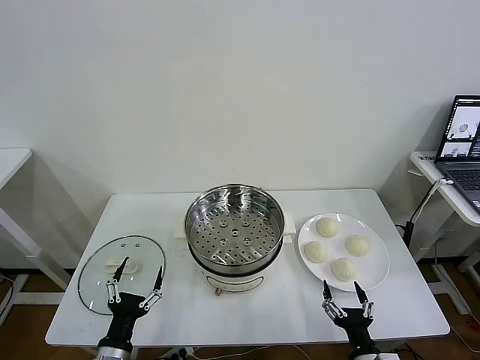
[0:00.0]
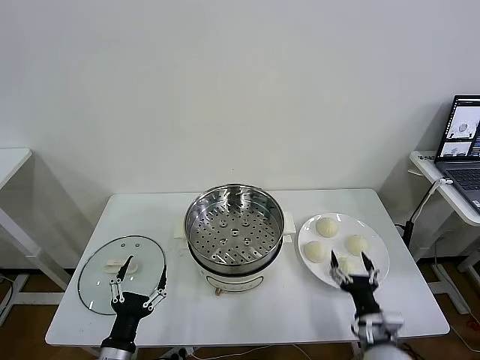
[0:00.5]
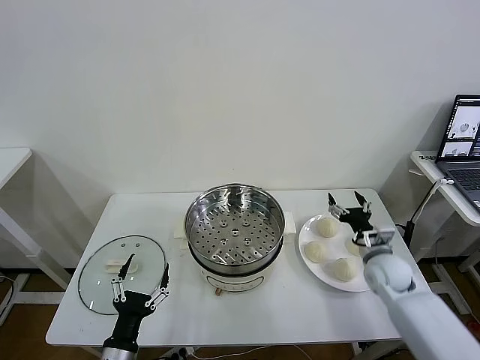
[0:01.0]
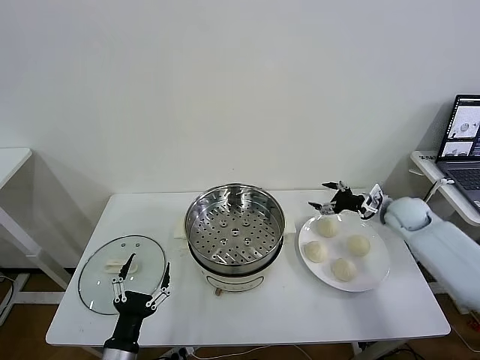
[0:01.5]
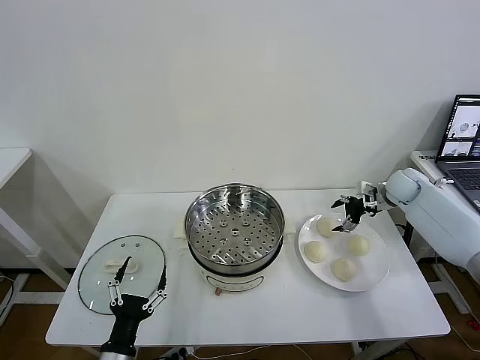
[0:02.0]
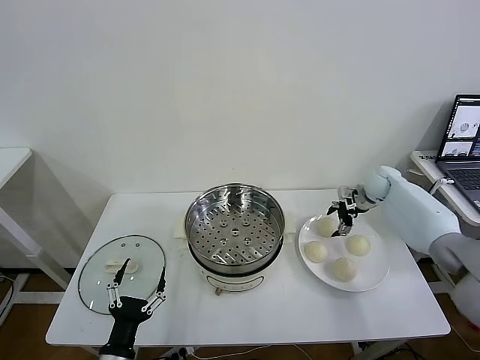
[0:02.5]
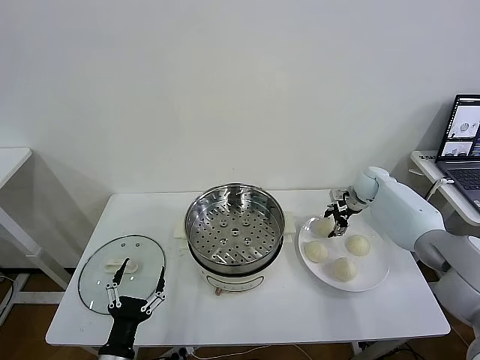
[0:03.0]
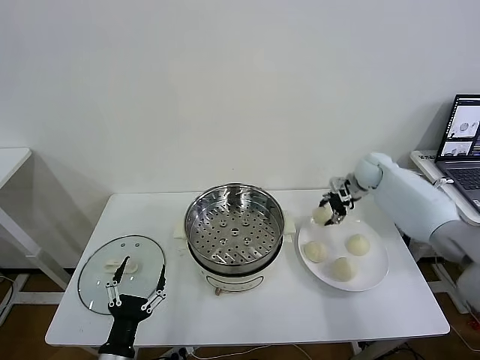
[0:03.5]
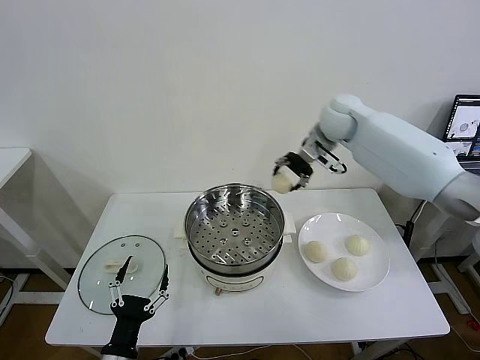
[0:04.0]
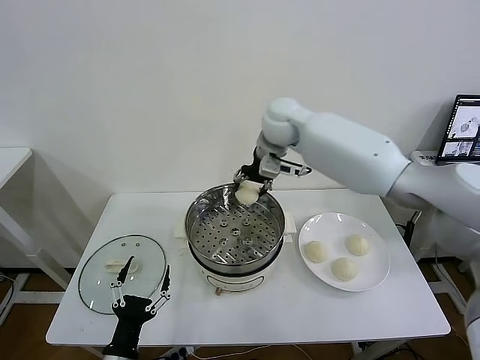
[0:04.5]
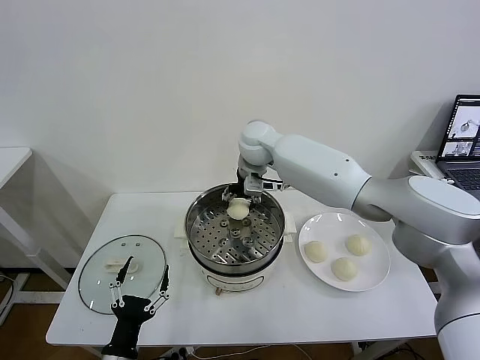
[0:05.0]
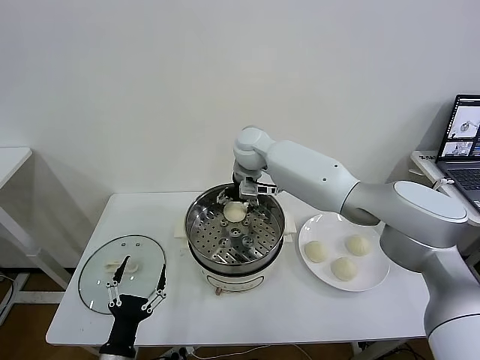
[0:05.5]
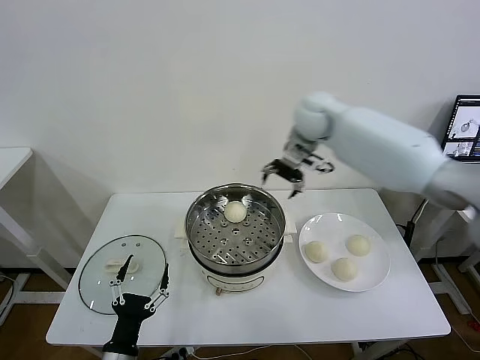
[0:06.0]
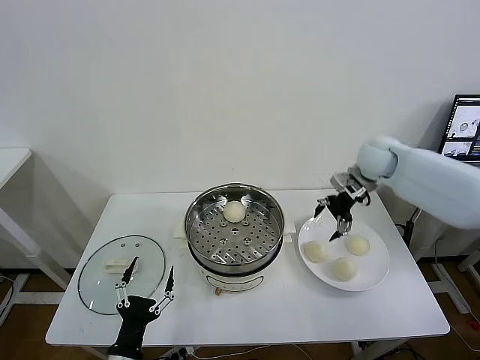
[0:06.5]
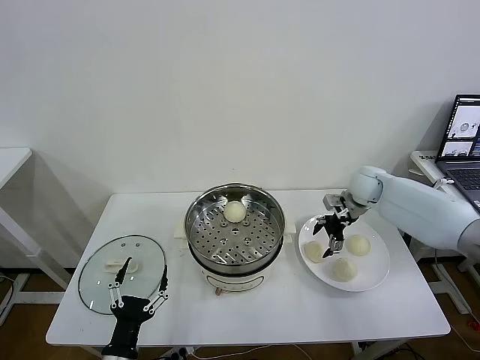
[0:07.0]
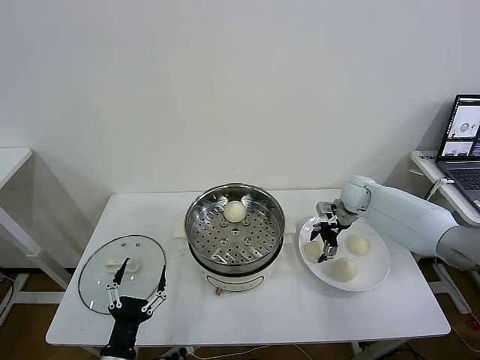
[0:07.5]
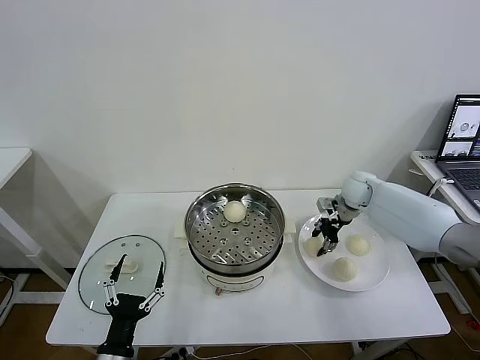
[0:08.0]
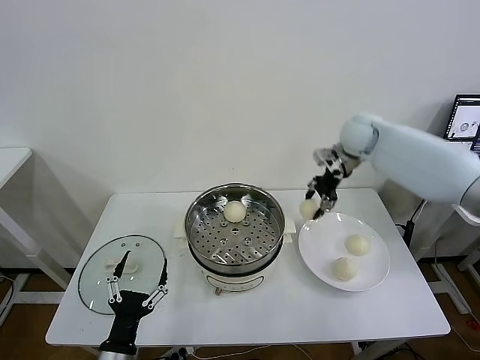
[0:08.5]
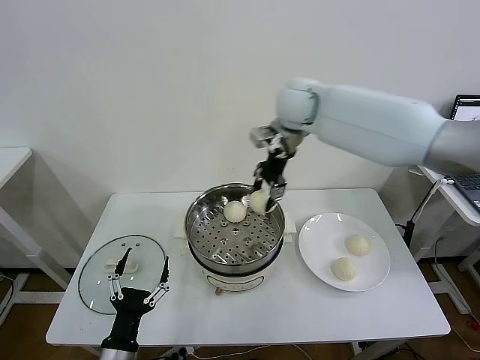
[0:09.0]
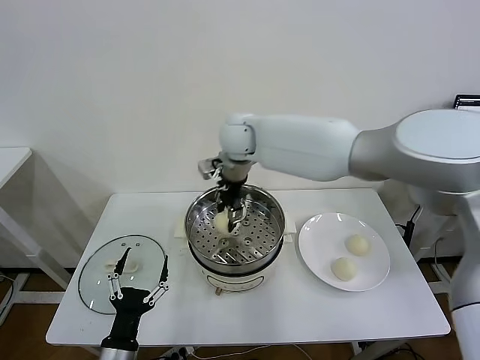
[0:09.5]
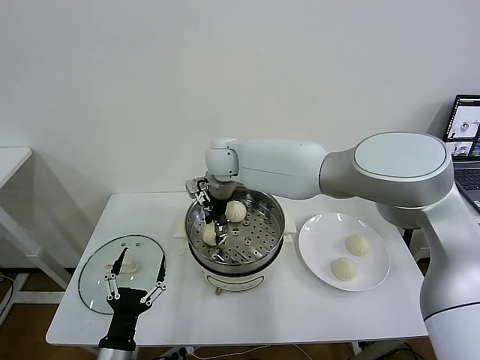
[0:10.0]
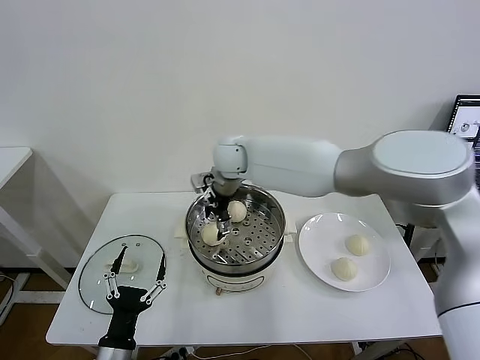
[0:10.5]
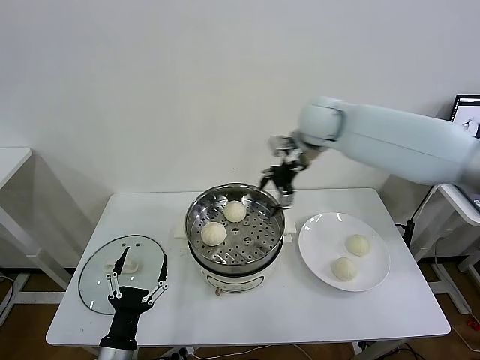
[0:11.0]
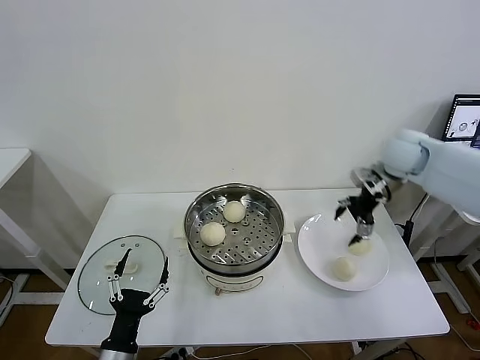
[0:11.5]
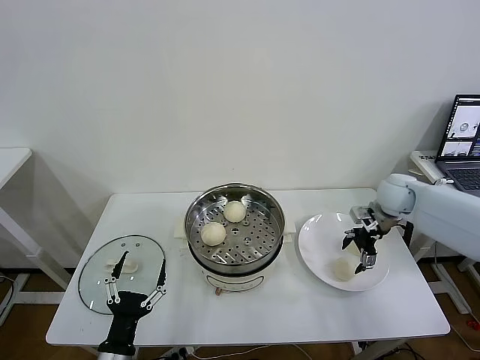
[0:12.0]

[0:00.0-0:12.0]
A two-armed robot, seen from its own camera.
Task of the whole recording: take steamed baozi put them in steamer then cover it.
Step, 0:00.0 to 0:03.0: Grasp the baozi in the plate with right gripper.
Step, 0:03.5 to 0:05.5: Place the baozi on the steamer with right gripper.
Step, 0:06.0 to 0:07.5: Grasp the baozi in the plate with right gripper.
Step, 0:08.0 to 0:10.0: Place the baozi on the steamer with right gripper.
0:02.0 to 0:04.0: The right gripper moves to the left and upward, about 30 cm, and closes its fingers.
0:04.0 to 0:06.0: The right gripper moves some 15 cm to the left and comes back, and opens its fingers.
0:06.0 to 0:08.0: The right gripper travels downward and to the right by approximately 20 cm, and closes up.
0:08.0 to 0:10.0: The right gripper goes some 35 cm to the left.
0:10.0 to 0:12.0: The right gripper moves to the right, approximately 40 cm, and opens its fingers.

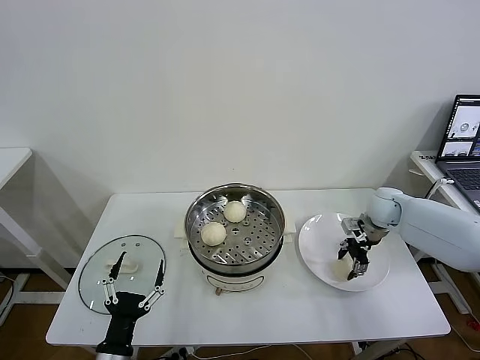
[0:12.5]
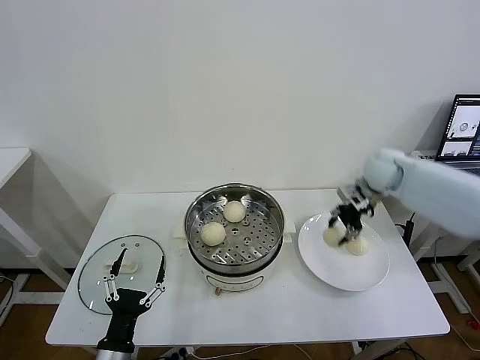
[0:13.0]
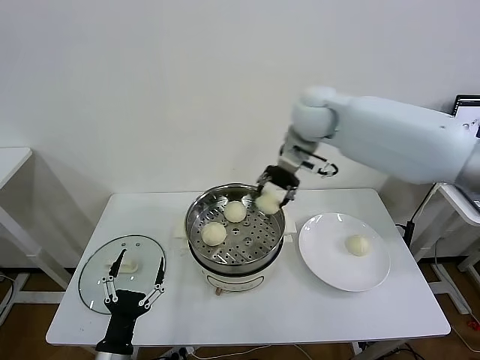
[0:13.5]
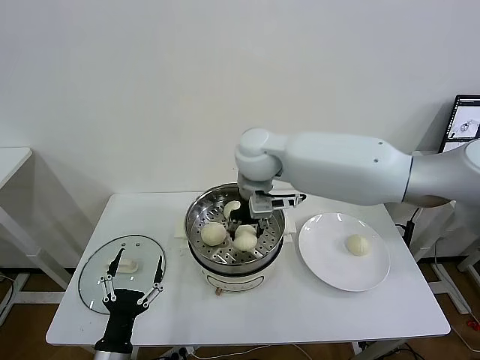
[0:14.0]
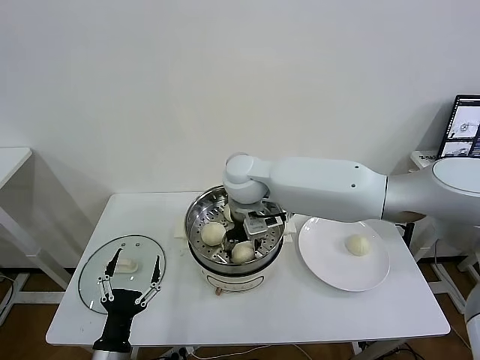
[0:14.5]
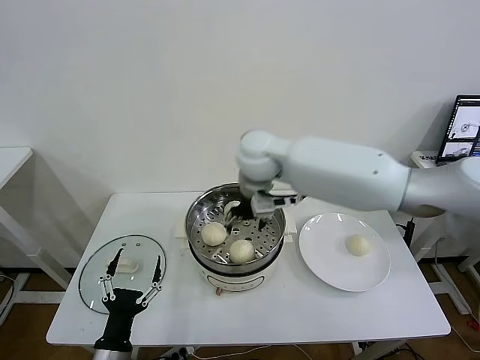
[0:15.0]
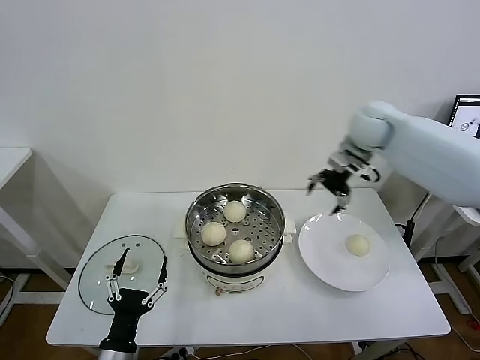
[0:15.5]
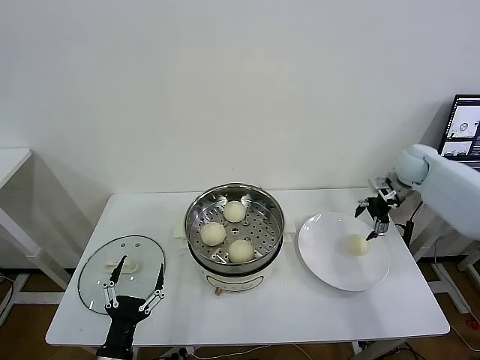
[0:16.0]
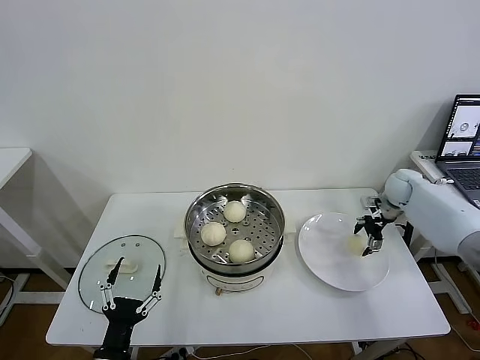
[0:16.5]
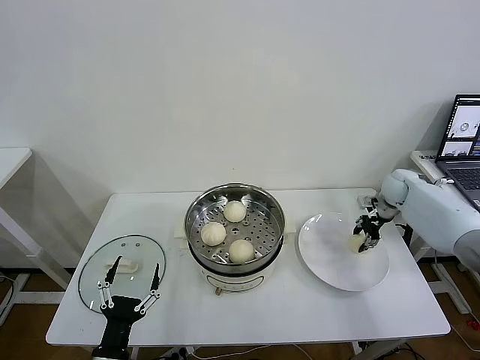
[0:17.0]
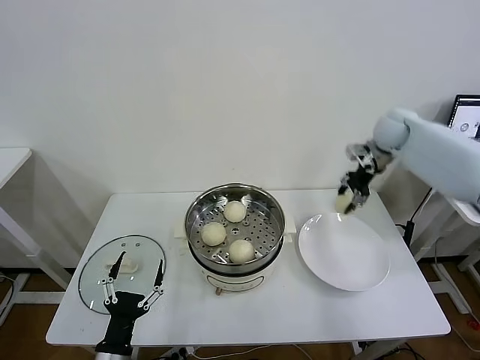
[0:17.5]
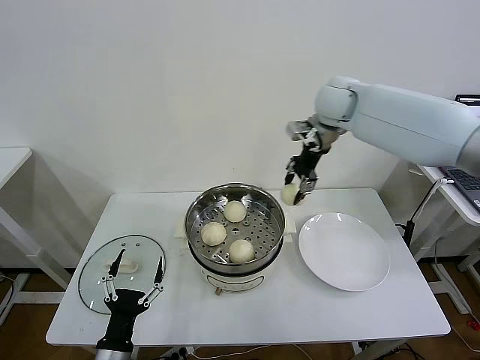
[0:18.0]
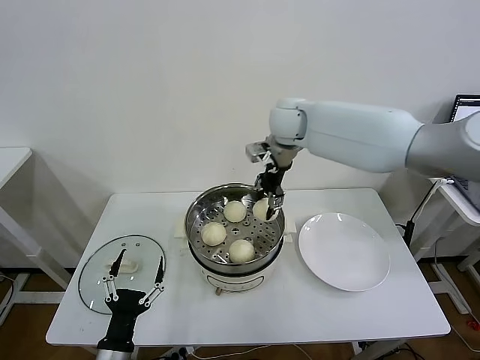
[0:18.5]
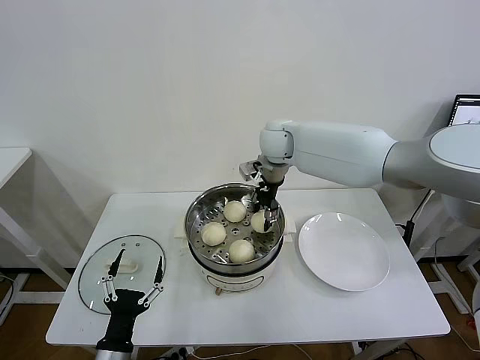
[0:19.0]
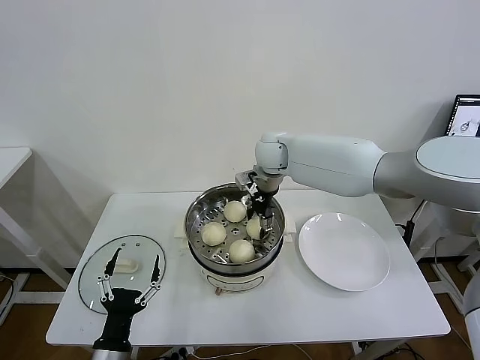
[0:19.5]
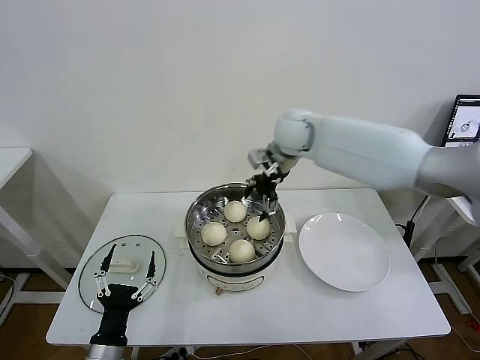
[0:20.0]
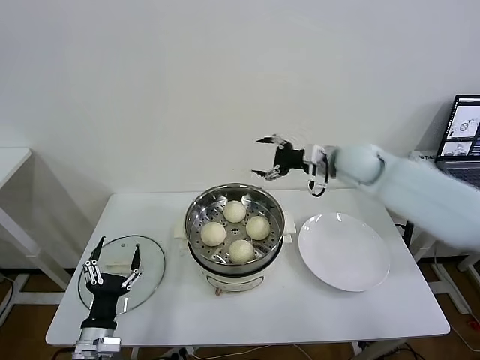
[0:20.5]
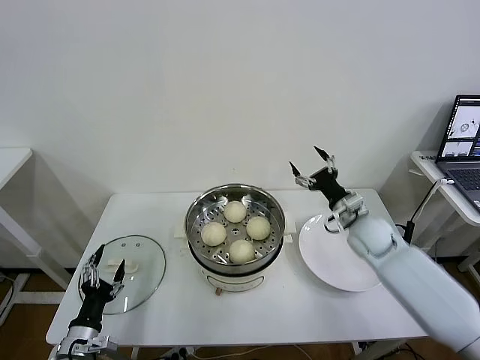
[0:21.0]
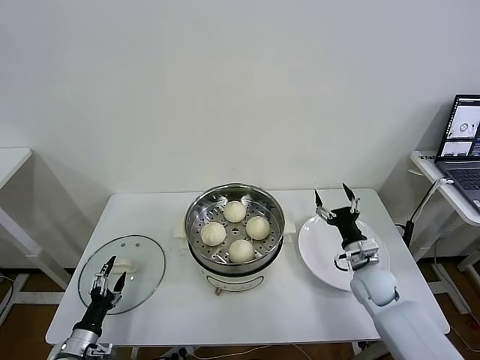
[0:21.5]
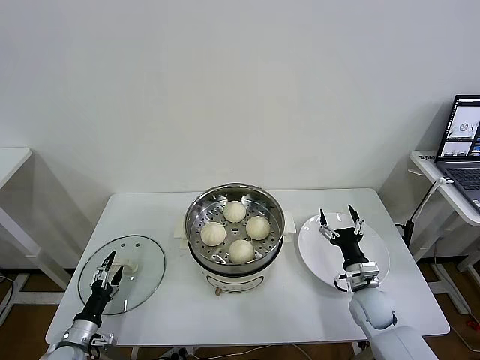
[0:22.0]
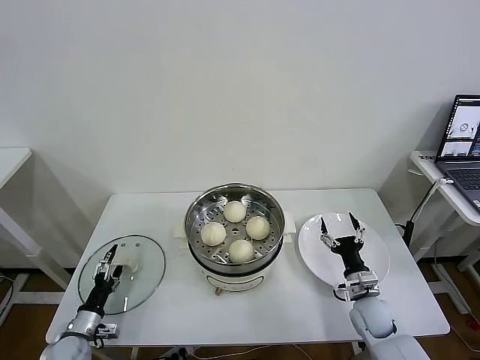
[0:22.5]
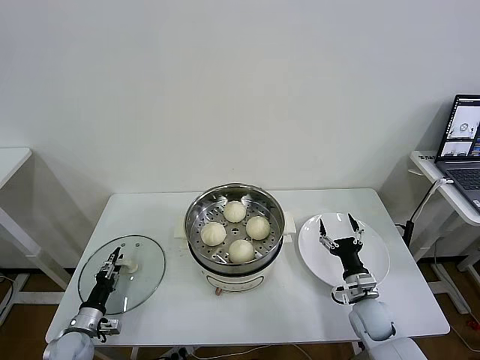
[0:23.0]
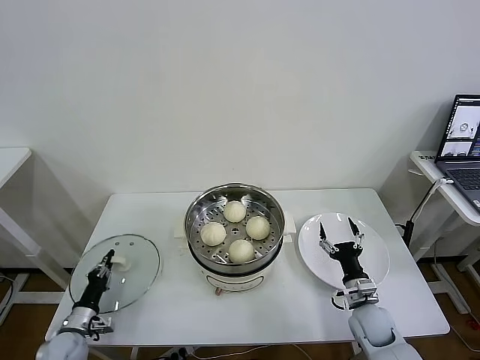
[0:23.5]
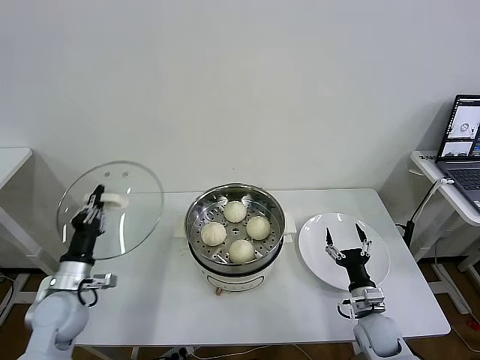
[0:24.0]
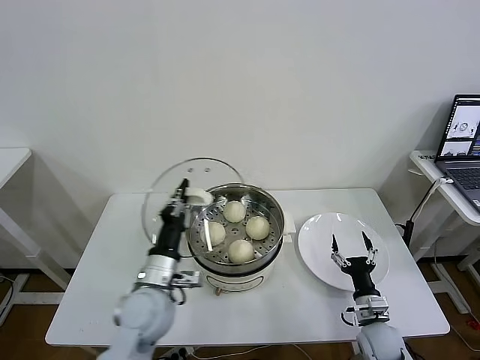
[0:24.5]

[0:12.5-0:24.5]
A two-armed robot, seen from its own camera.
Task of the whole recording: take steamed baozi put them in steamer then cover it.
Step, 0:13.0 to 0:14.5: Place the baozi on the steamer with right gripper.
Step, 0:15.0 to 0:16.5: Grasp the baozi in the plate with right gripper.
Step, 0:17.0 to 0:19.5: Place the baozi on the steamer with right gripper.
Step, 0:20.0 to 0:23.0: Grasp the pot lid with left gripper.
0:12.5 to 0:14.5: The right gripper heads to the left, covering some 35 cm, and opens.
0:14.5 to 0:16.5: The right gripper travels to the right by approximately 40 cm.
0:16.5 to 0:18.5: The right gripper shifts roughly 40 cm to the left and upward, and closes.
0:18.5 to 0:20.5: The right gripper moves to the right, downward and backward, approximately 20 cm, and opens. The left gripper shifts by some 5 cm.
0:20.5 to 0:22.5: The left gripper goes about 20 cm to the left, downward and forward. The right gripper moves downward and backward, about 40 cm.
0:22.5 to 0:24.5: The right gripper shifts some 5 cm backward; the left gripper shifts approximately 30 cm to the right and upward, and closes.

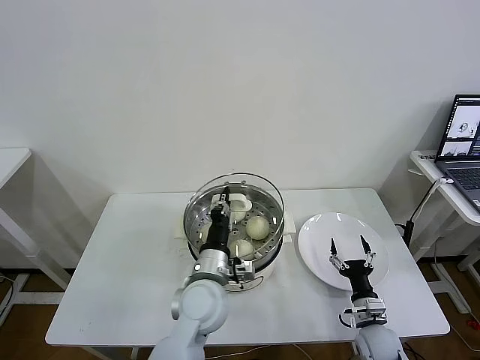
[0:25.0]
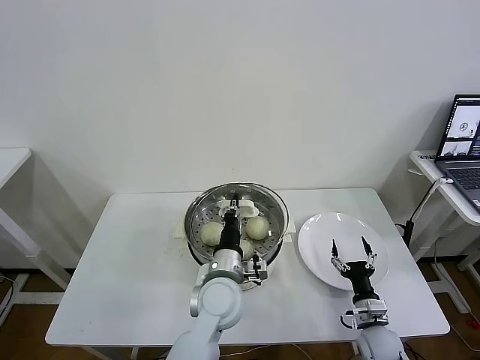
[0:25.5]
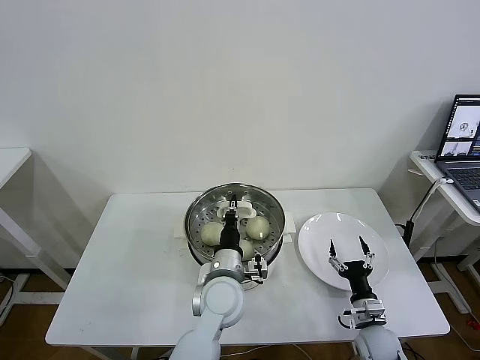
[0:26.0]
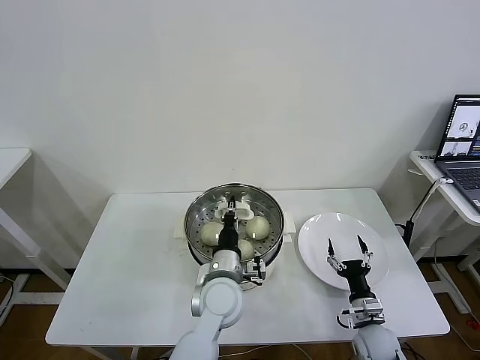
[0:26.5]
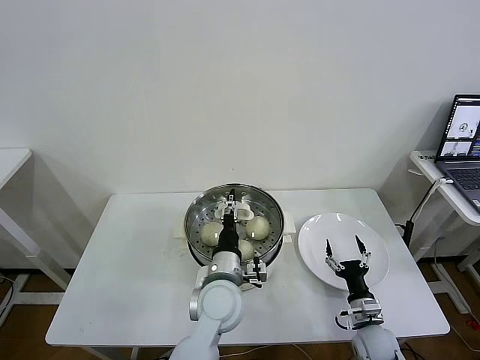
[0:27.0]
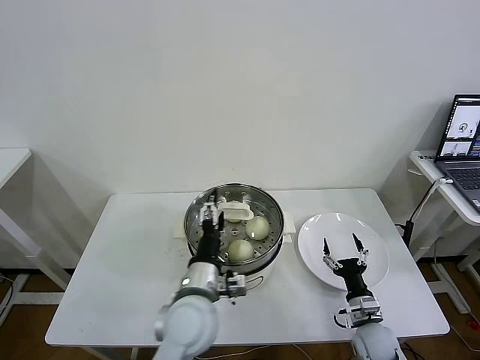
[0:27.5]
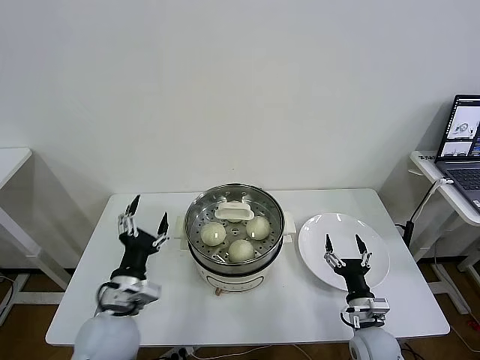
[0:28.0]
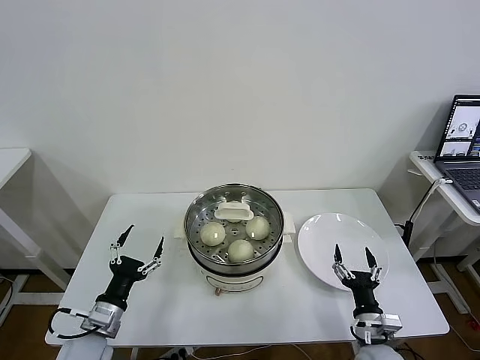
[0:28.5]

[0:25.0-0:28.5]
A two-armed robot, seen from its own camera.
Task of the whole recording: take steamed baozi put them in steamer then cover it.
Step, 0:25.0 to 0:27.0: Place the pot lid on the steamer with left gripper.
0:25.0 to 0:27.0: The left gripper opens.
0:27.0 to 0:28.5: The right gripper moves upward, roughly 5 cm. Meanwhile the left gripper heads to the left, covering approximately 25 cm, and opens up.
